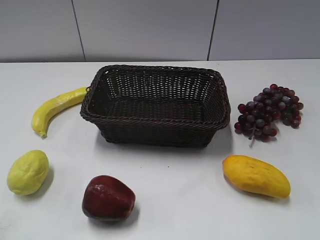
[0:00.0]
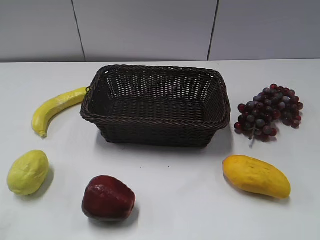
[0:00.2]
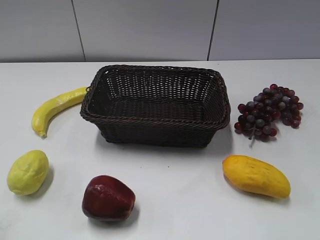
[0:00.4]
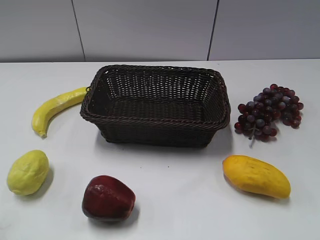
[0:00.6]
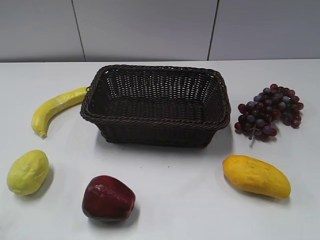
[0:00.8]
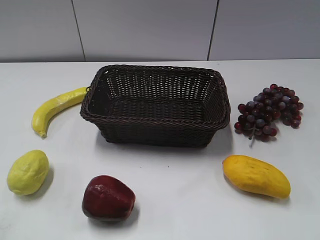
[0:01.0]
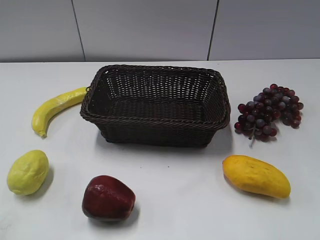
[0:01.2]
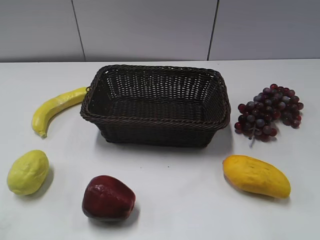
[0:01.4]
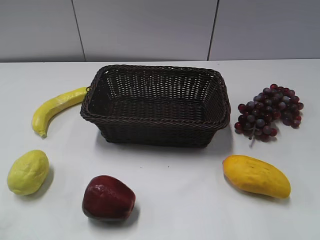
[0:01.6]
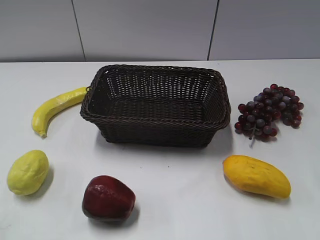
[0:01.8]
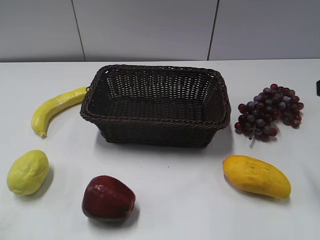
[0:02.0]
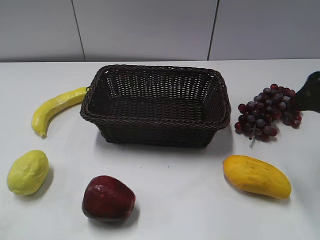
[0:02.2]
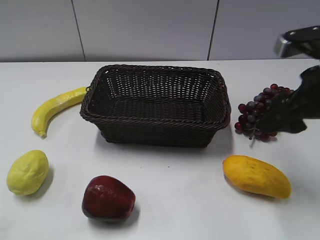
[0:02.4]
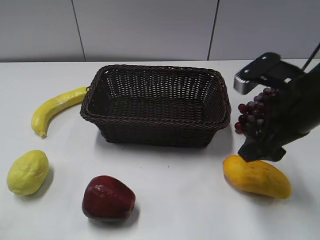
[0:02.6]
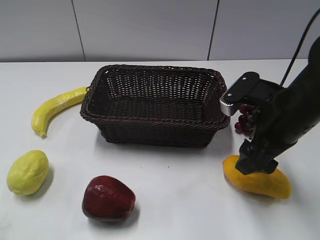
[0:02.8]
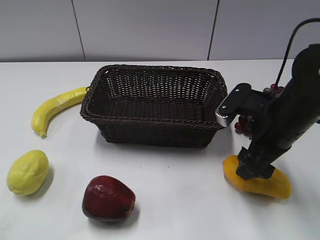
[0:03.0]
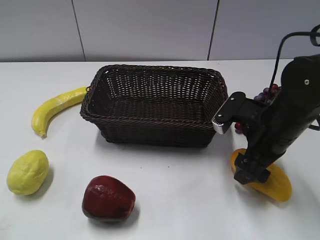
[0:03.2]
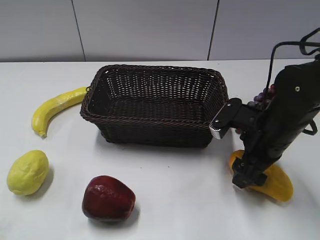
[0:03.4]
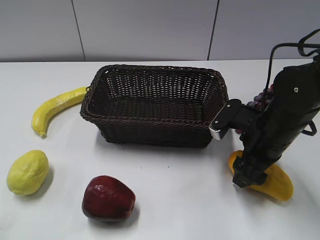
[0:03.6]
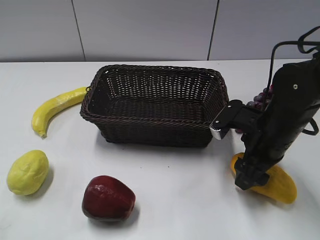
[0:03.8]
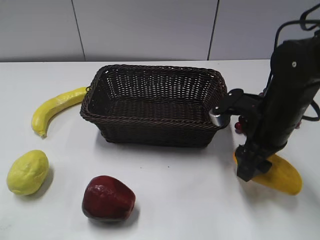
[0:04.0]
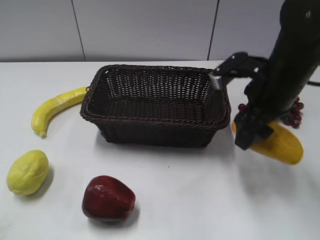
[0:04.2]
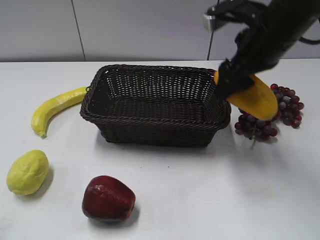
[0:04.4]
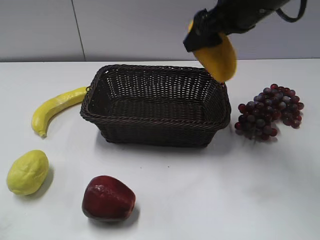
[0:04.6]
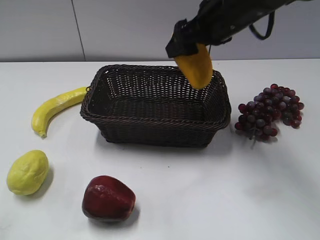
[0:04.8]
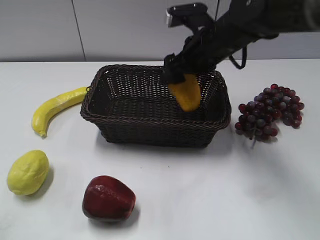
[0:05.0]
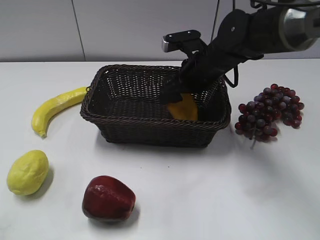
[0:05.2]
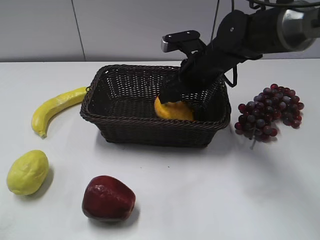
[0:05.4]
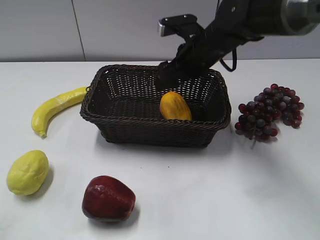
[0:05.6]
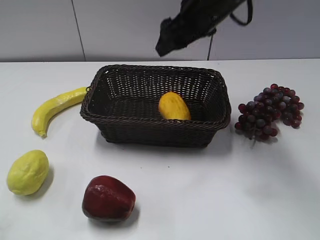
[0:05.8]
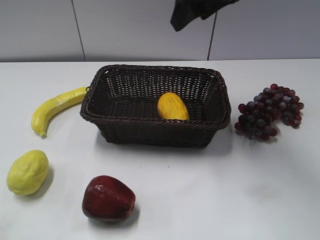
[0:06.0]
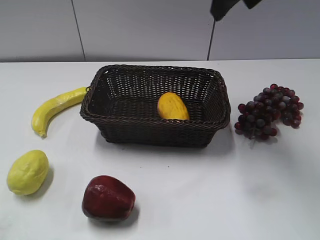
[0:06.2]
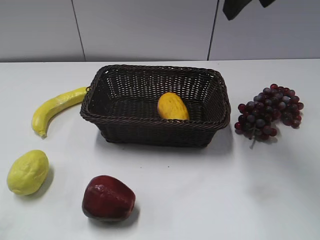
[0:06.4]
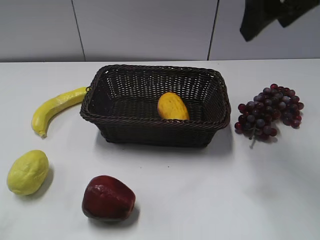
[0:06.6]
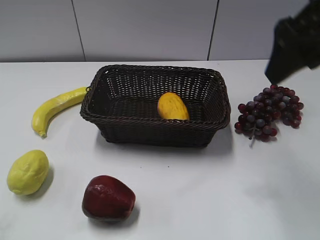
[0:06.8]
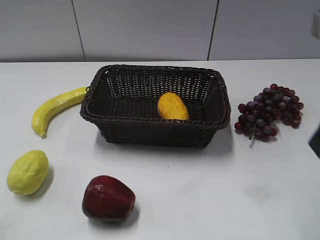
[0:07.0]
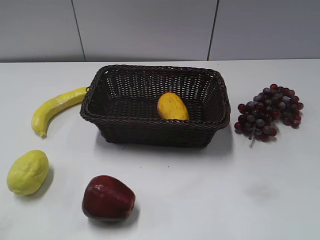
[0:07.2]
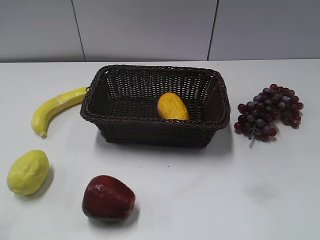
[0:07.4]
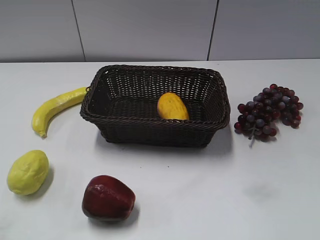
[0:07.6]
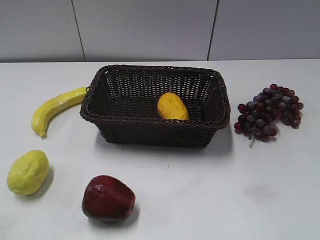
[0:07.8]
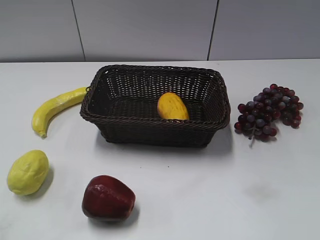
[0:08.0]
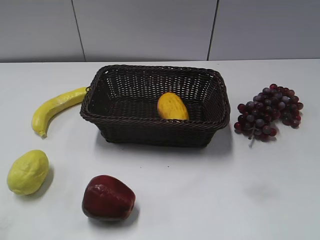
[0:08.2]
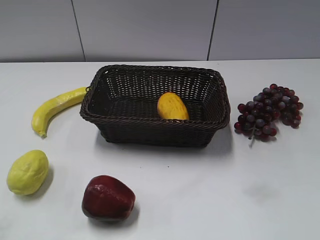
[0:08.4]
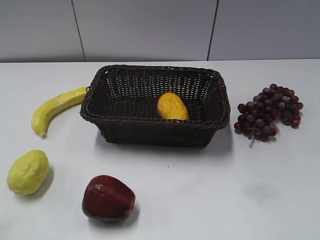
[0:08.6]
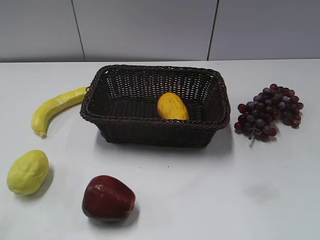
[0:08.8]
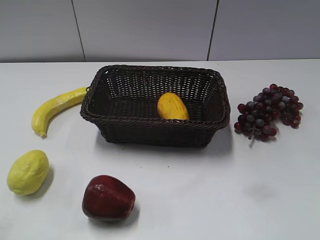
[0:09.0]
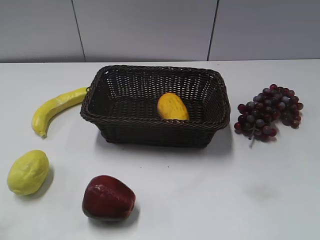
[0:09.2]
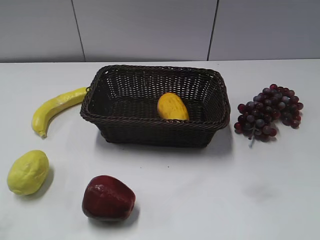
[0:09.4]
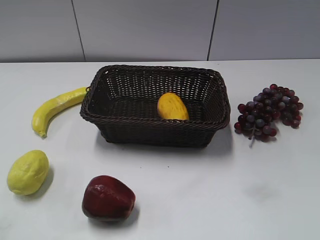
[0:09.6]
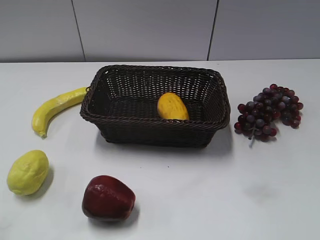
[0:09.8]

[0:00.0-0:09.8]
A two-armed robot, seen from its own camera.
Step, 0:02.0 to 0:03.6: Grasp the mango with right gripper.
Step, 0:03.8 to 0:05.4: Place the mango in the basket with right gripper.
0:01.4 to 0:02.8: The right gripper goes some 25 cm forward, downward and to the left, and opens its fingers.
0:02.8 to 0:04.2: The right gripper shifts by approximately 5 cm, and closes its fingers.
0:04.2 to 0:05.6: The right gripper moves up and down over approximately 15 cm, changing direction 2 times.
0:05.6 to 0:07.0: The right gripper heads backward, to the right and upward, covering approximately 30 cm.

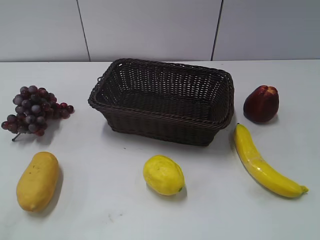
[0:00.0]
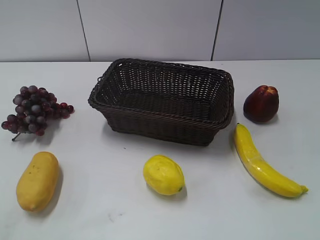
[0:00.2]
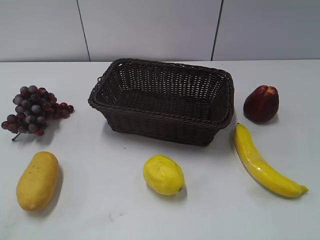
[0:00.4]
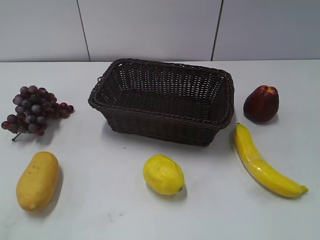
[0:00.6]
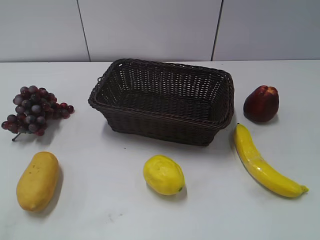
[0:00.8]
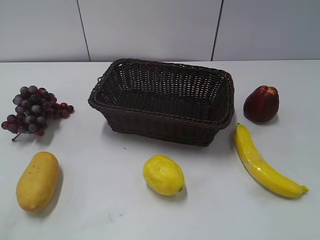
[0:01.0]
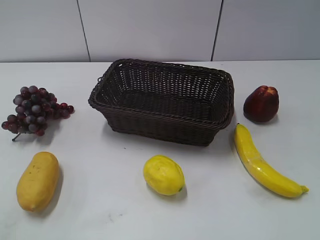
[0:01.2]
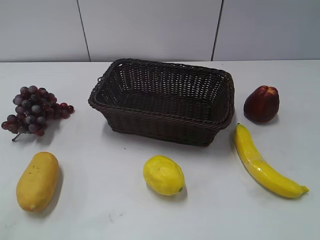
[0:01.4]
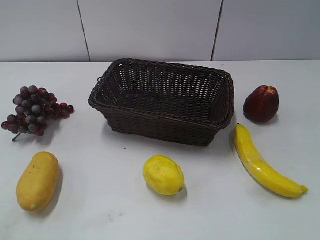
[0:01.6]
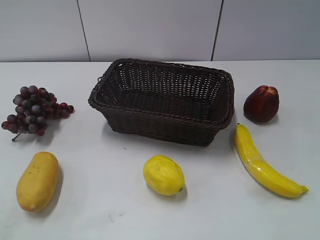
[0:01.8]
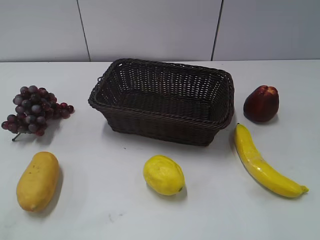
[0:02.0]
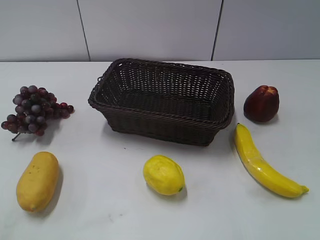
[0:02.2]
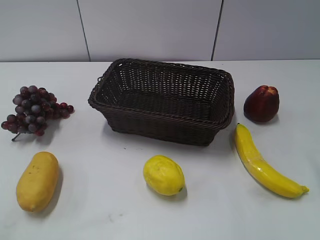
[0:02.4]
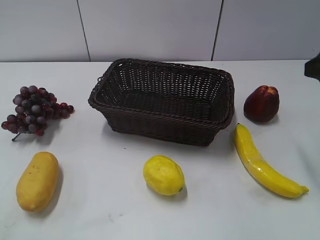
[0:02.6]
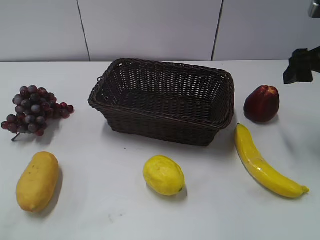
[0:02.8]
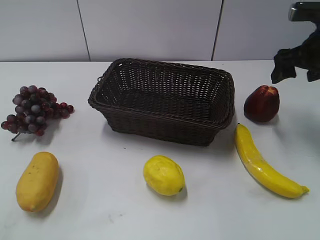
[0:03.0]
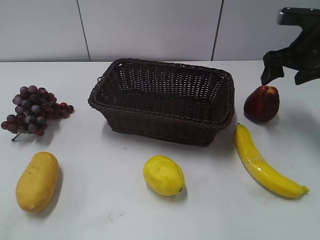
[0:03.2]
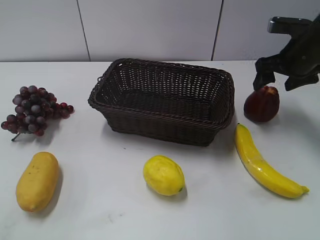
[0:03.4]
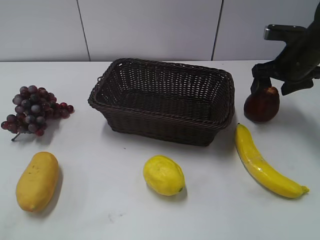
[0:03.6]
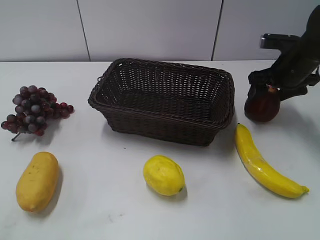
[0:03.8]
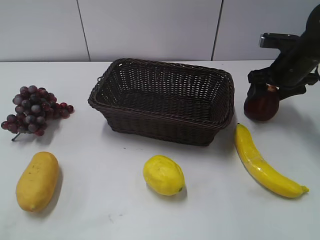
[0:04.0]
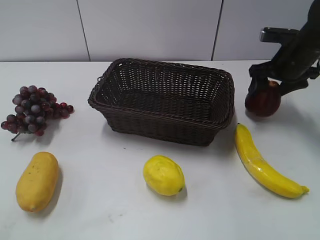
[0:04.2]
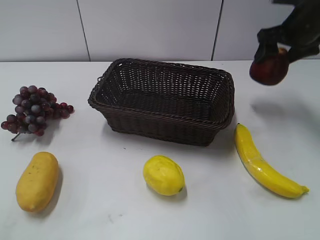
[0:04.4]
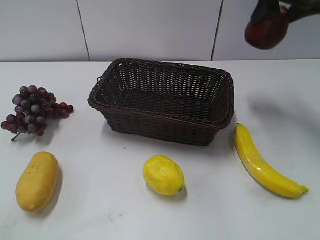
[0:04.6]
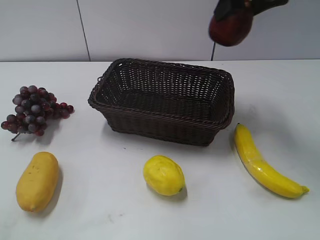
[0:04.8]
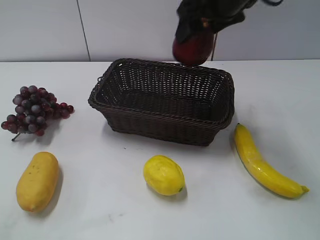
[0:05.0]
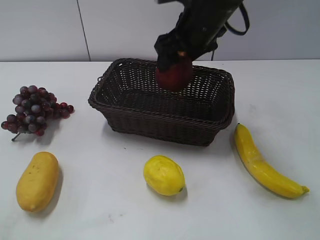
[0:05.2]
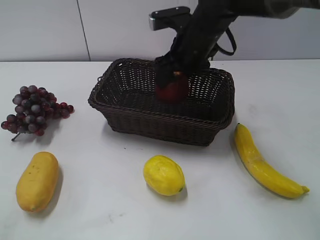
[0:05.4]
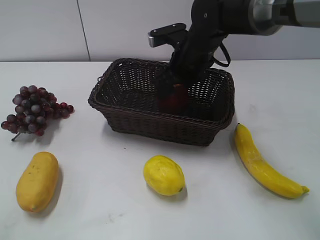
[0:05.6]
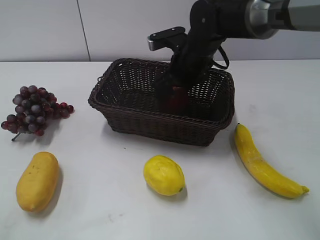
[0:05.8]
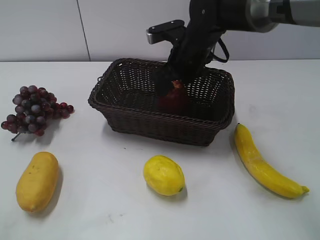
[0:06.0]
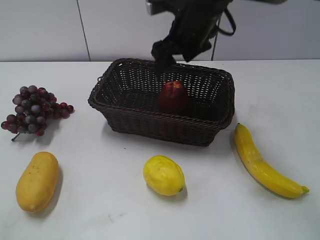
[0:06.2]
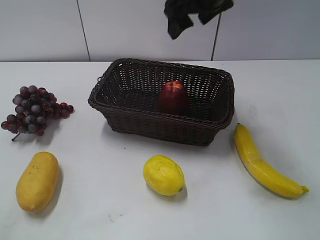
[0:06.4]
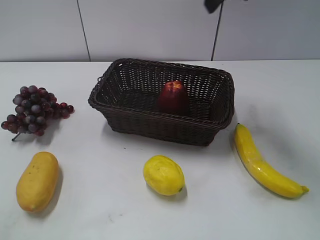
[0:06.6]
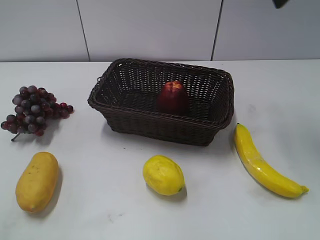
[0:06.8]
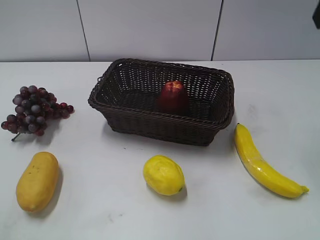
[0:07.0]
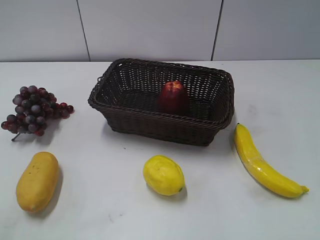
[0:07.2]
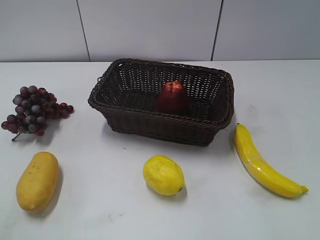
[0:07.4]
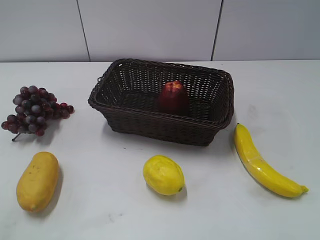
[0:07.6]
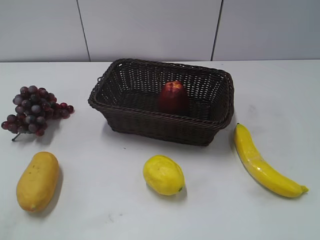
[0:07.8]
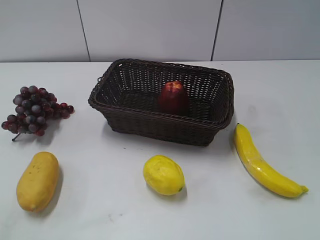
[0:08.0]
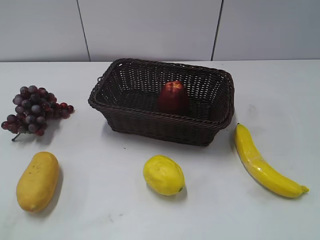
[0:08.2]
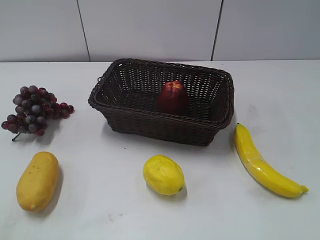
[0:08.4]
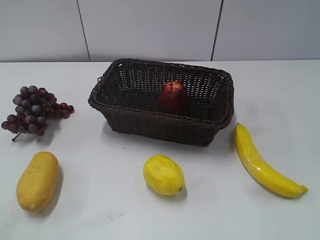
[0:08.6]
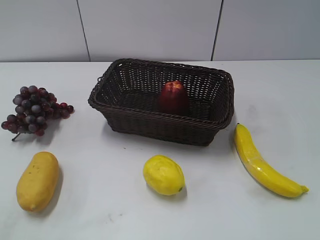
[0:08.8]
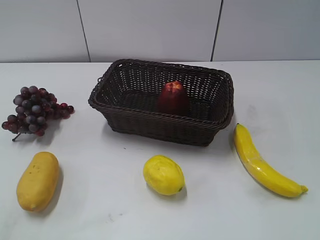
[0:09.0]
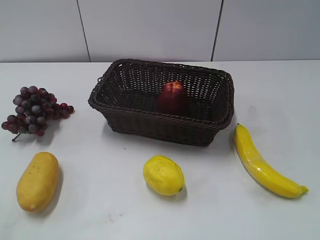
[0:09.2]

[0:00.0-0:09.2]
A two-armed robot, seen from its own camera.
Step, 0:02.6 to 0:03.8: Grasp the apple with right gripper.
Step, 0:04.0 to 0:05.8: Place the apple in the basket with right gripper.
0:01.6 to 0:03.0: The right gripper heads forward, covering about 35 cm, and opens.
0:03.0 to 0:04.6: The right gripper is displaced upward and to the left by some 10 cm, and closes its fingers.
0:04.6 to 0:06.2: The right gripper goes about 20 cm to the left and downward.
0:06.2 to 0:07.6: The right gripper travels backward and to the right by about 40 cm.
